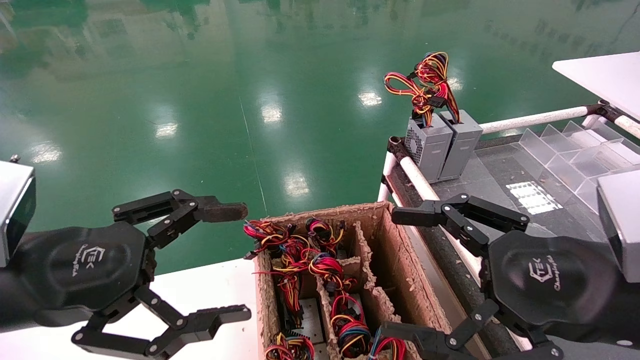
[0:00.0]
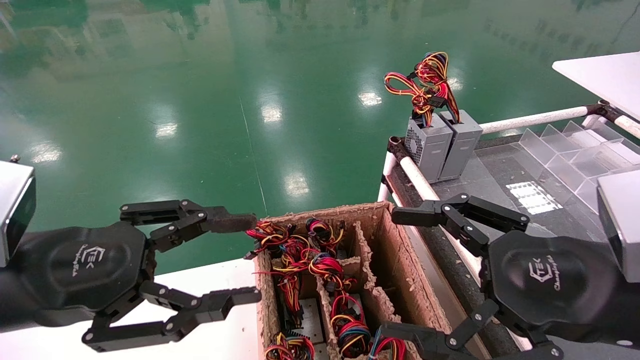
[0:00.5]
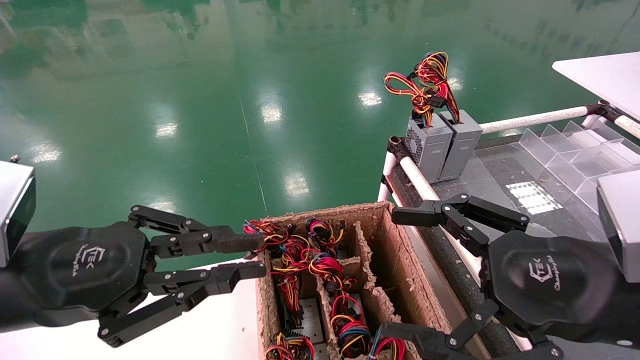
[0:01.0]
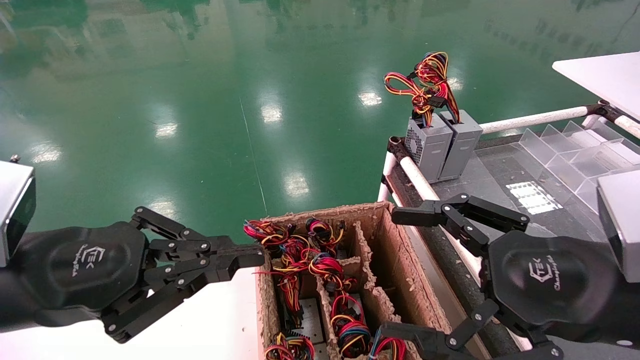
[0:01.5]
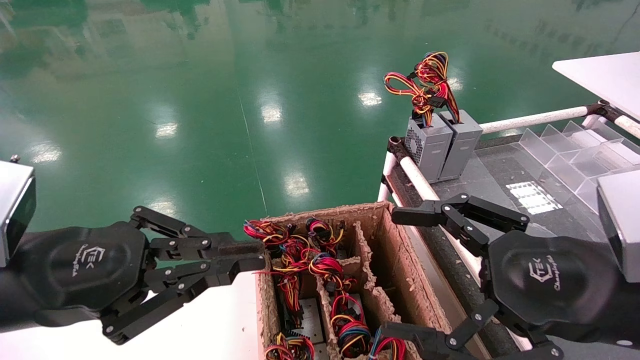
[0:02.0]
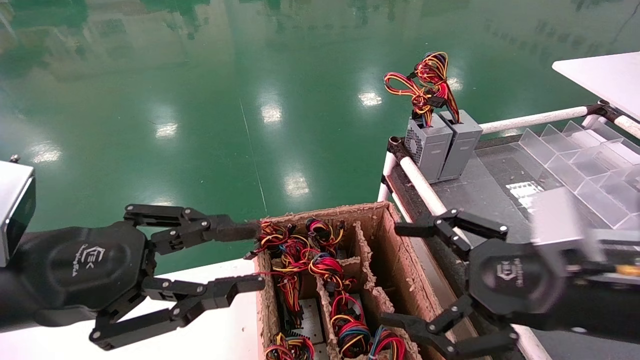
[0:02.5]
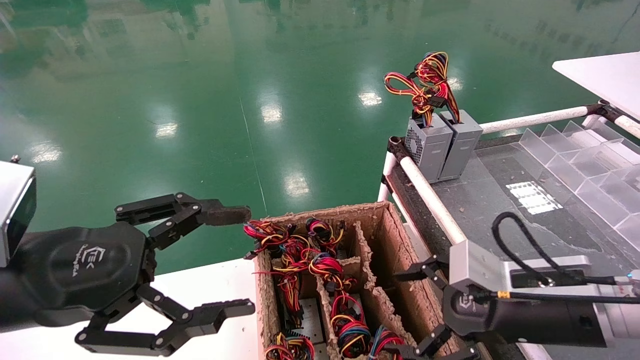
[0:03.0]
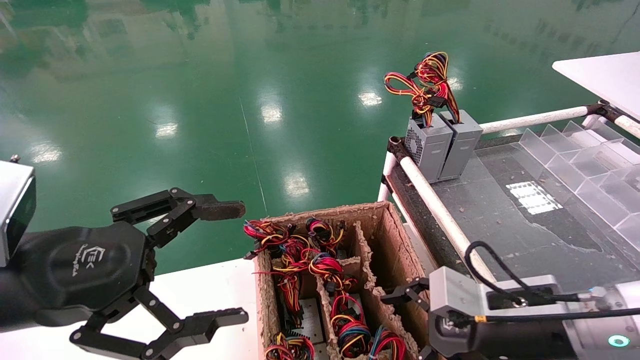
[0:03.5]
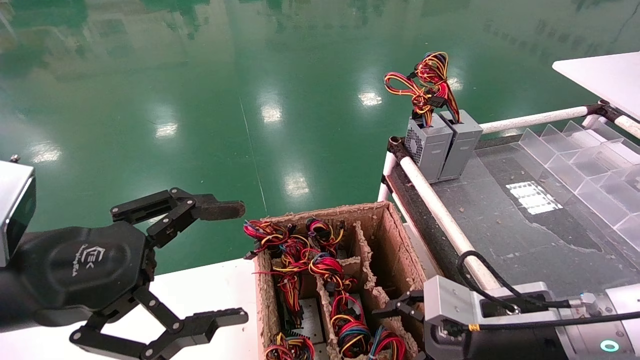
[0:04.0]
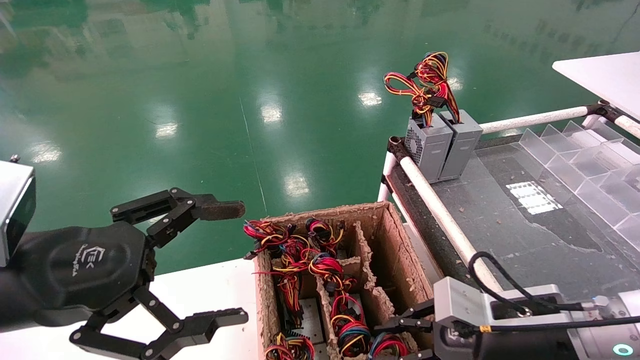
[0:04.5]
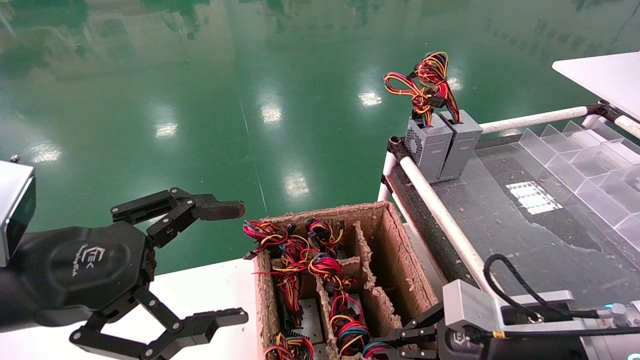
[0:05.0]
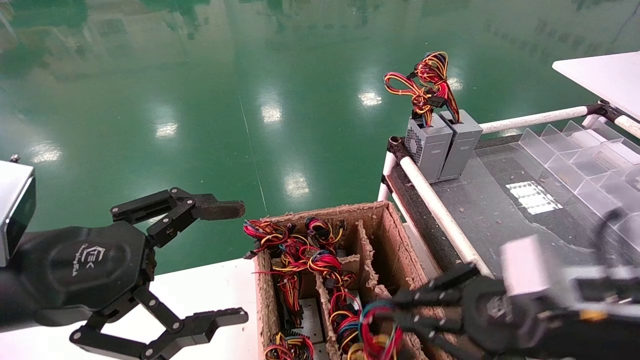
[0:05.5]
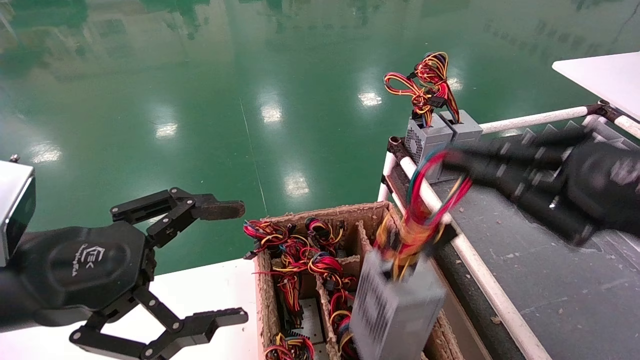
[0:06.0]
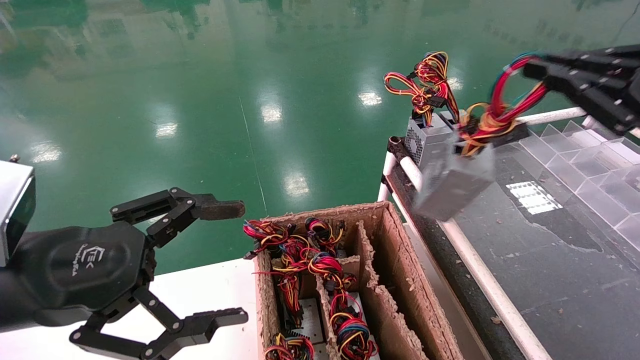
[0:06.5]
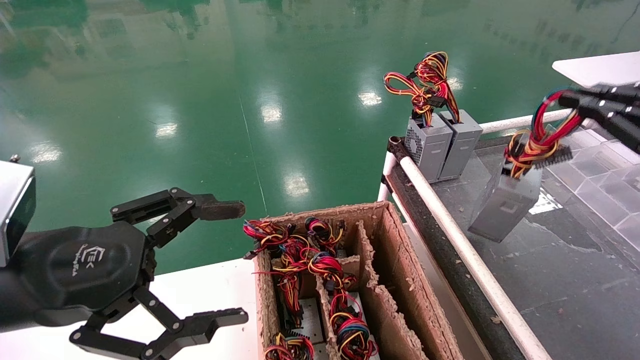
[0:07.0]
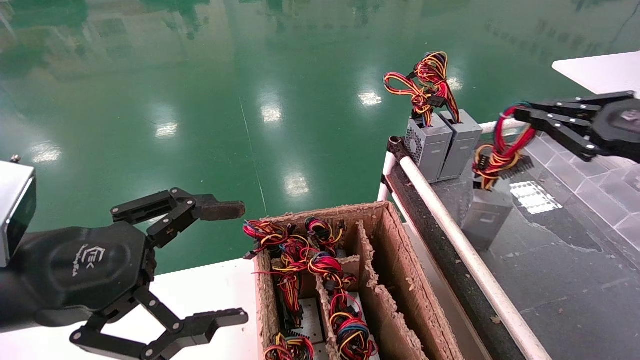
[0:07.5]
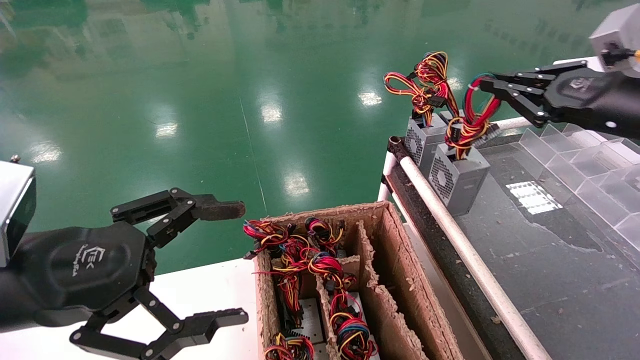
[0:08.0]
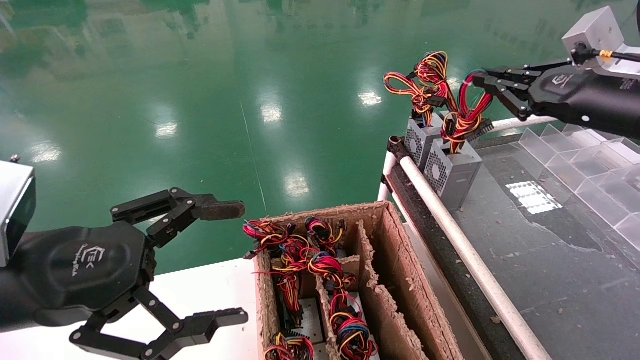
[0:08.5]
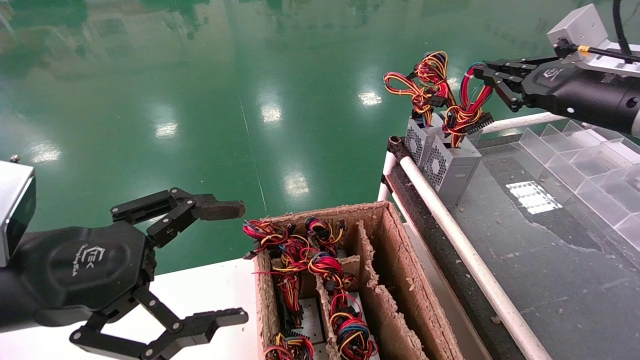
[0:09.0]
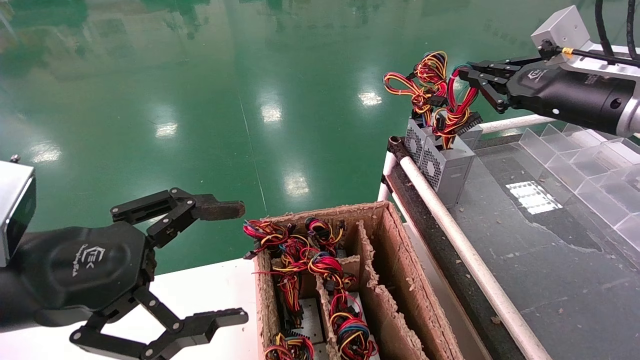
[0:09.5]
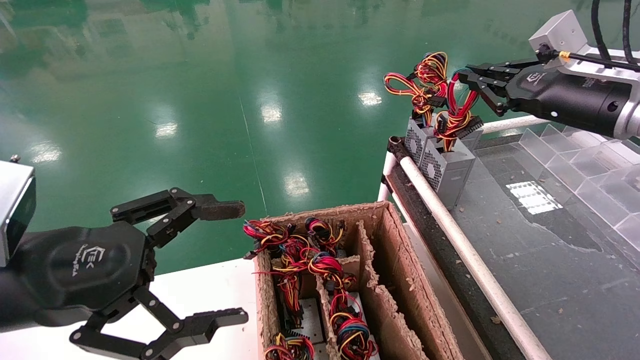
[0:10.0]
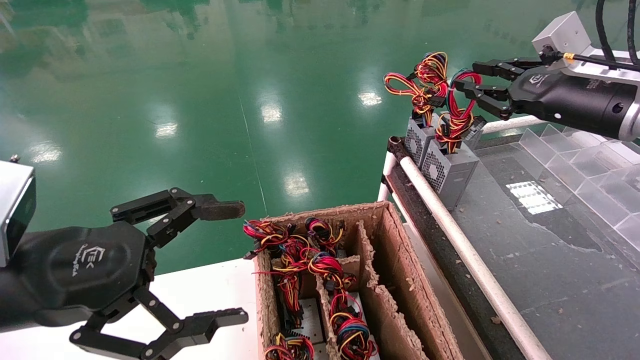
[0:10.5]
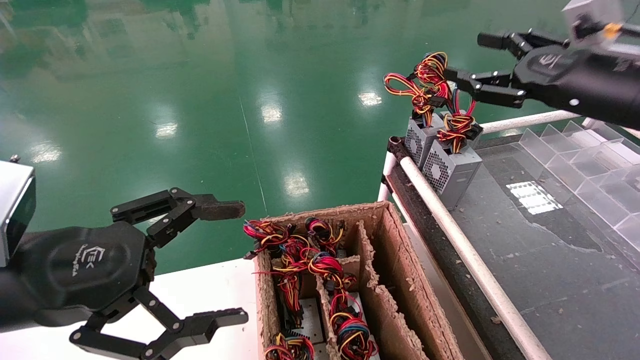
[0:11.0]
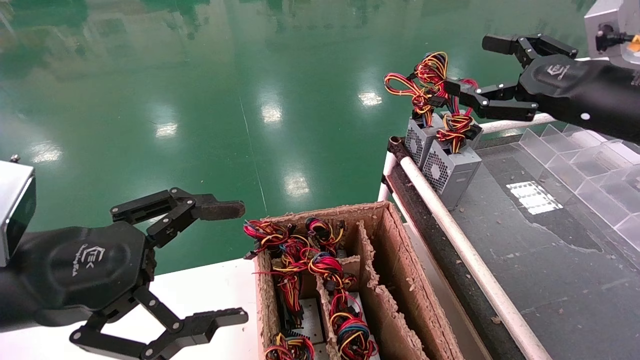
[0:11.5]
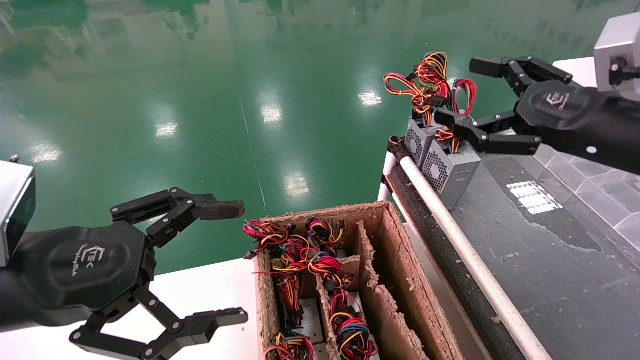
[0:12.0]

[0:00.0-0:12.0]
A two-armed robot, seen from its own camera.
Step, 0:01.5 to 0:05.0: Grab and lift the power supply from the large box.
Step, 0:05.5 to 0:10.0: Place the power supply on the operating table.
0:00.0 to 0:02.0: The left gripper closes up.
0:02.0 to 0:04.0: The left gripper opens its fingers. The right gripper moves downward and forward, approximately 15 cm.
0:04.0 to 0:06.0: The right gripper shifts about 20 cm upward, to the right and backward, and closes its fingers.
0:06.0 to 0:08.0: The right gripper moves forward and to the right, approximately 15 cm.
0:08.0 to 0:10.0: The right gripper goes approximately 5 cm forward.
0:10.0 to 0:12.0: The right gripper moves backward, some 10 cm, and opens up.

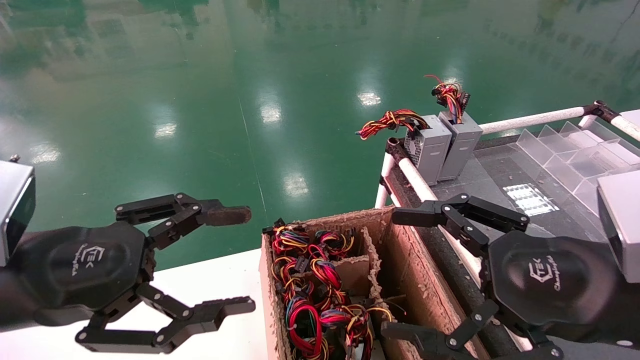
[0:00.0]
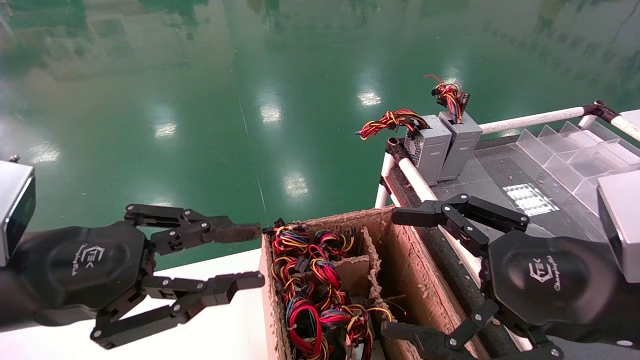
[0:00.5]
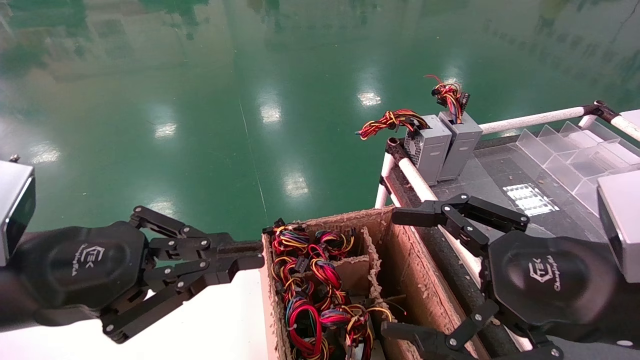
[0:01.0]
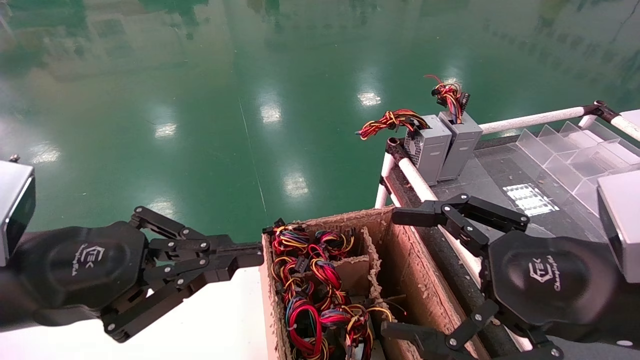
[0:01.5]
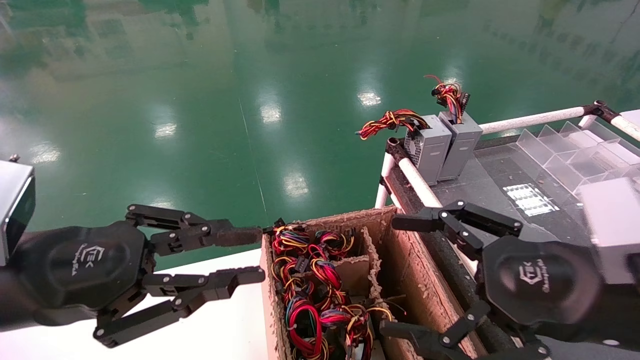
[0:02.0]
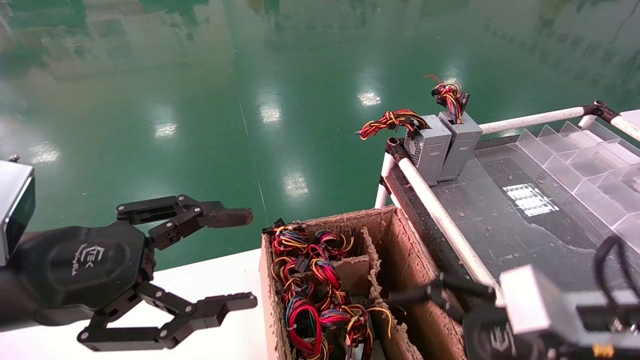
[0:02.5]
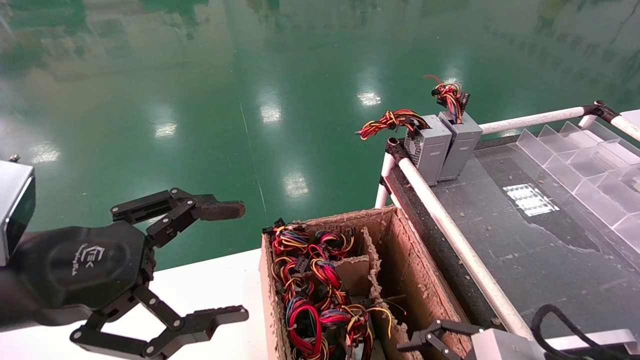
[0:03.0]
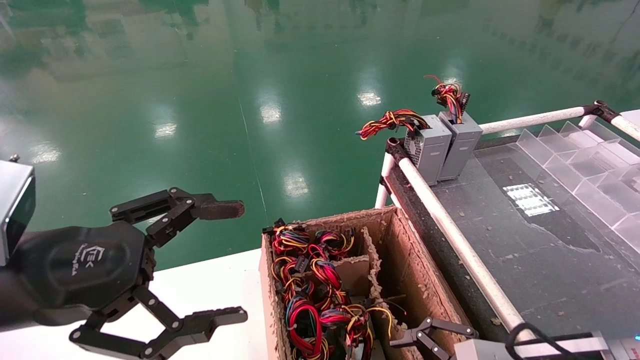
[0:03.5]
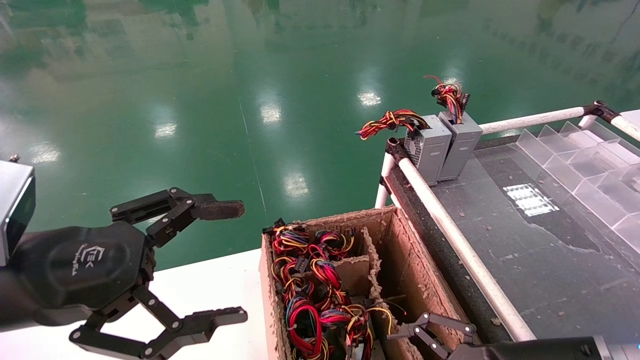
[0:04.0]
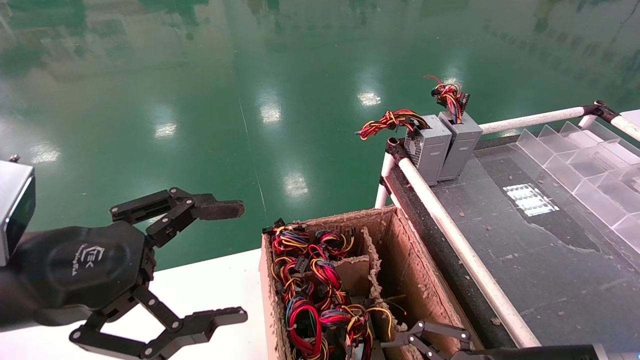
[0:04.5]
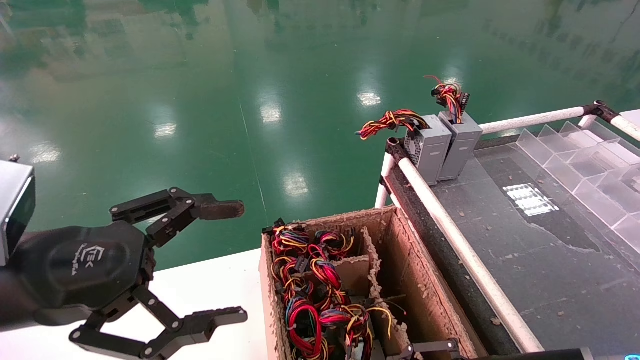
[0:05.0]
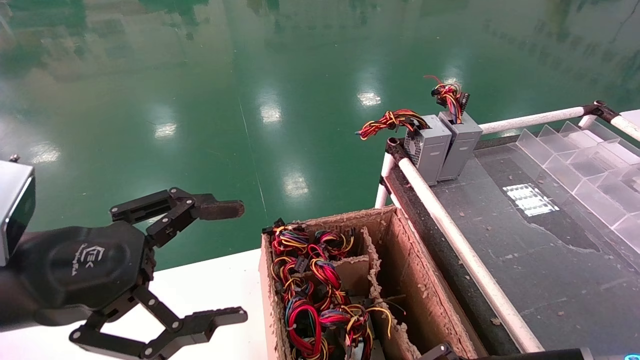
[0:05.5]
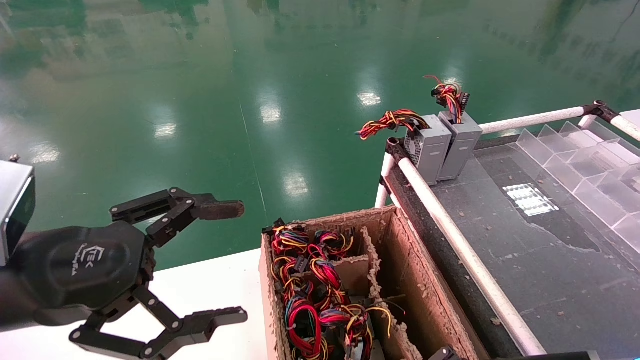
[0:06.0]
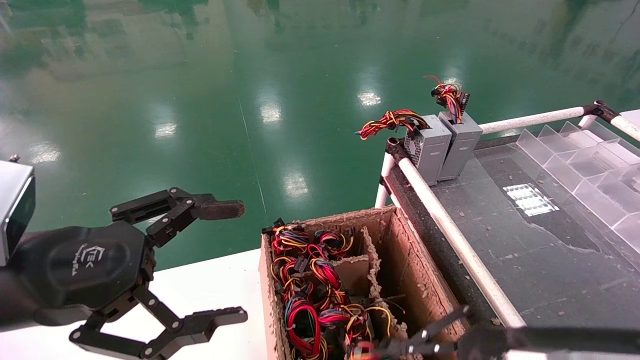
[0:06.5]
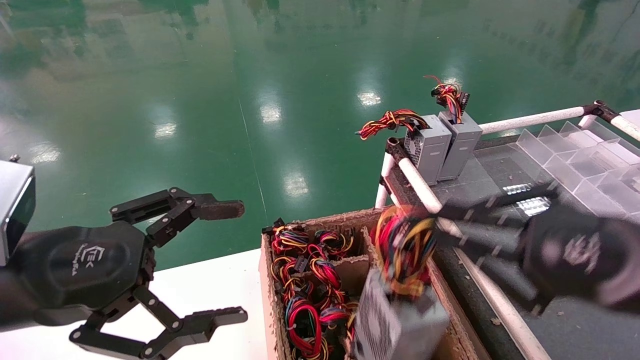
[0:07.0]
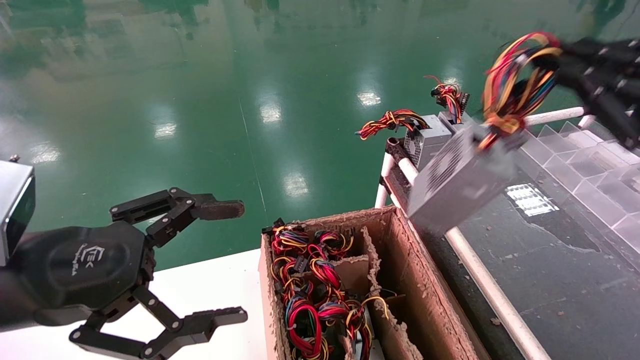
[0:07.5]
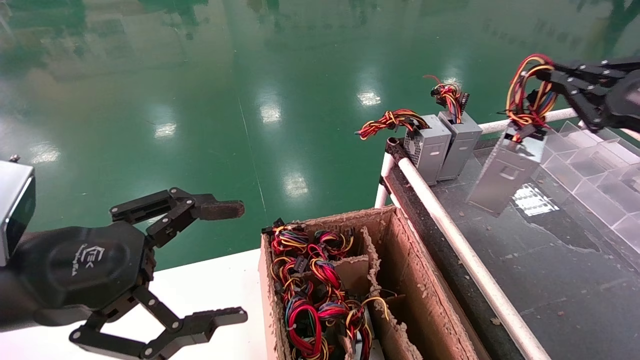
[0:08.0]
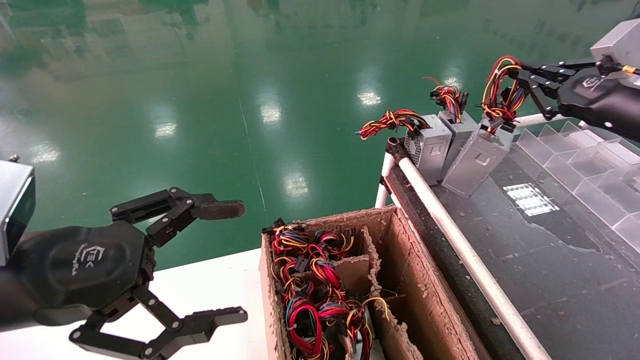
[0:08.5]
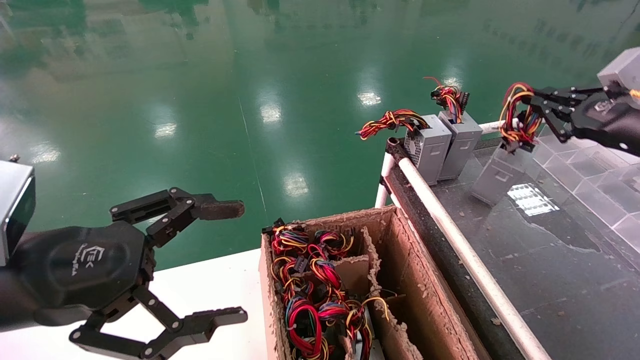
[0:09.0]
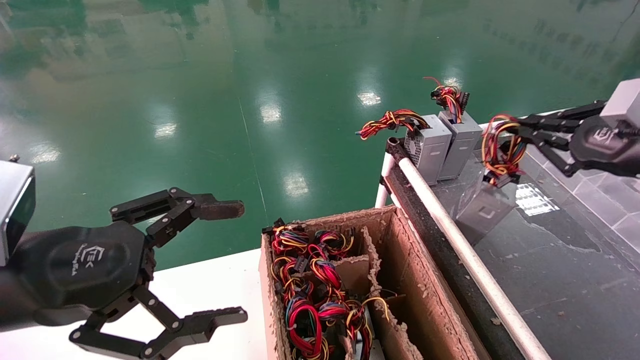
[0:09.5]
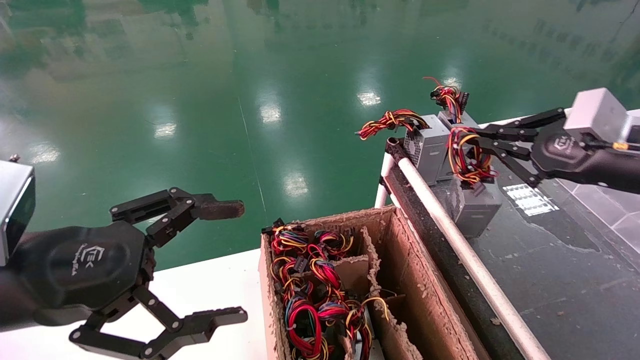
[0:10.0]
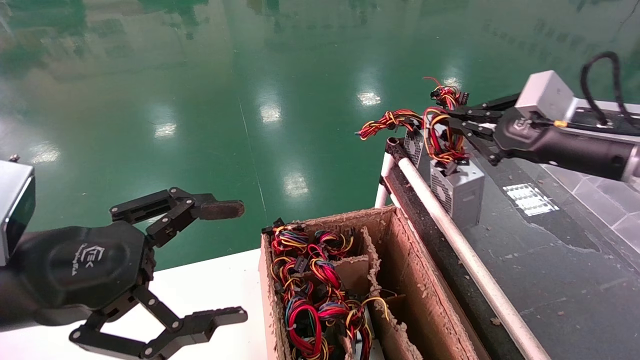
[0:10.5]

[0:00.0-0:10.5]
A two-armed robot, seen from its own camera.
Step, 0:01.0 to 0:05.5: Grab and lift the power supply from the large box.
0:00.0 to 0:02.0: The left gripper closes.
0:02.0 to 0:04.0: The right gripper goes about 10 cm downward, while the left gripper opens.
0:04.0 to 0:06.5: The right gripper closes its fingers.
0:06.5 to 0:08.5: The right gripper goes approximately 30 cm forward, upward and to the right.
0:08.5 to 0:10.5: The right gripper shifts approximately 5 cm to the left.
